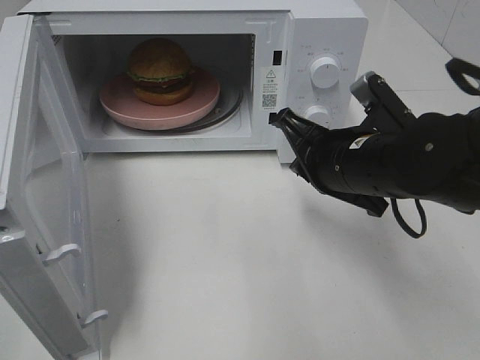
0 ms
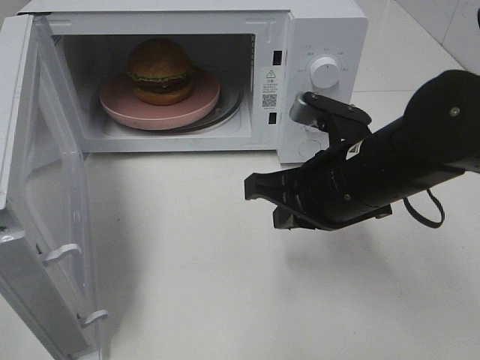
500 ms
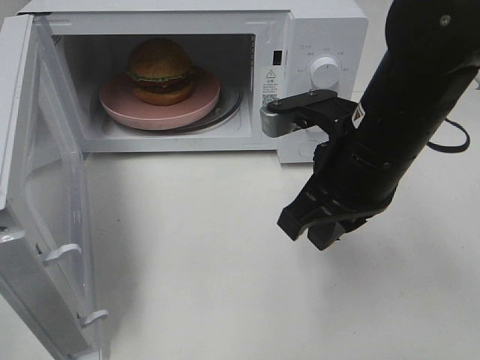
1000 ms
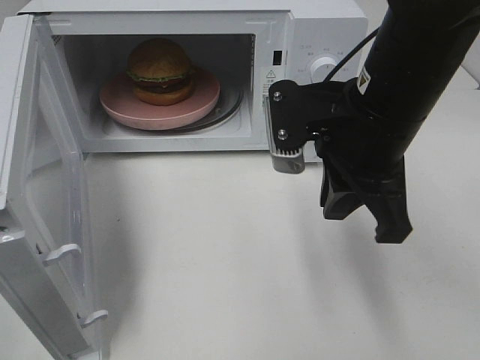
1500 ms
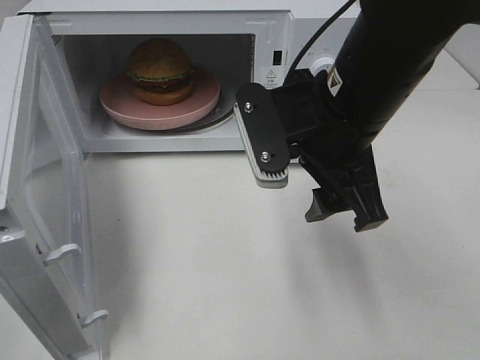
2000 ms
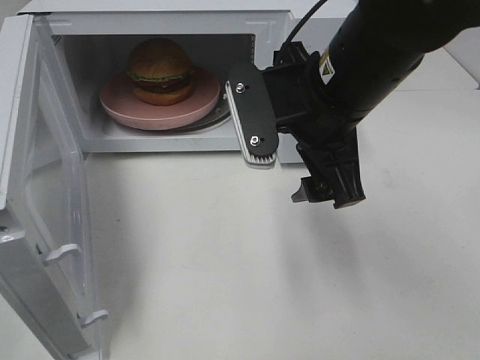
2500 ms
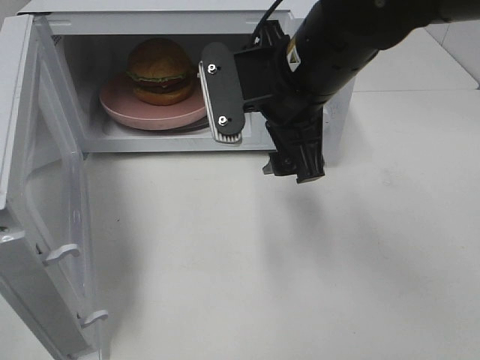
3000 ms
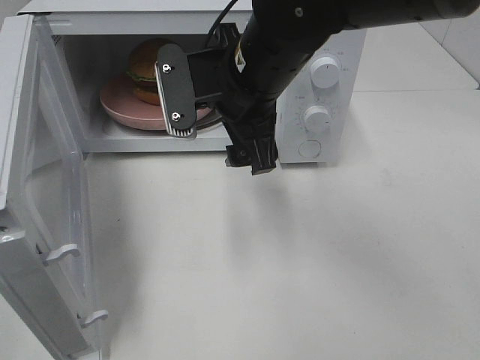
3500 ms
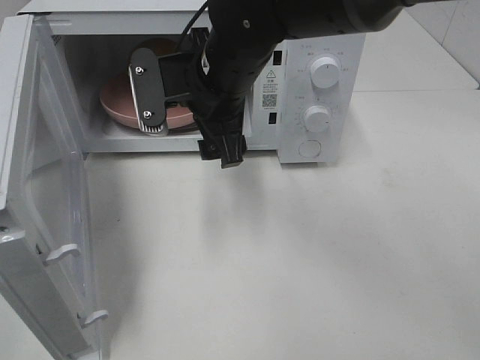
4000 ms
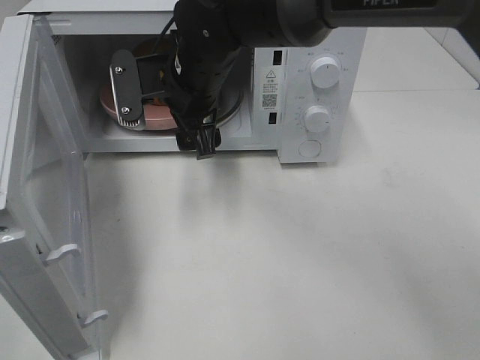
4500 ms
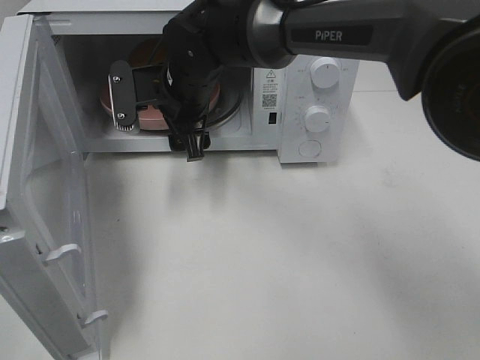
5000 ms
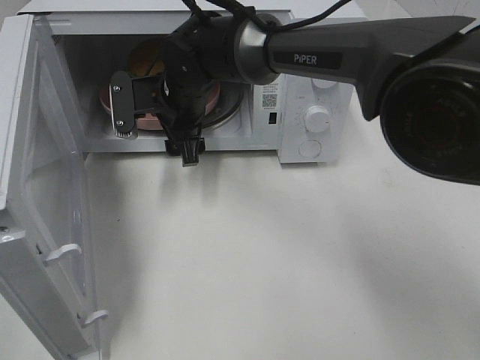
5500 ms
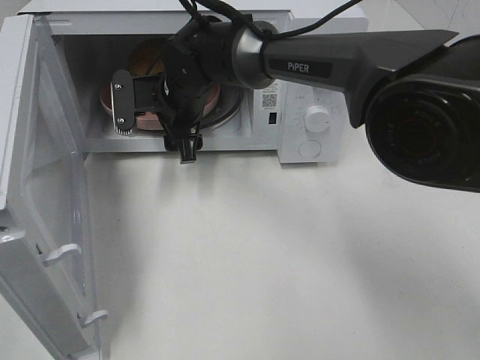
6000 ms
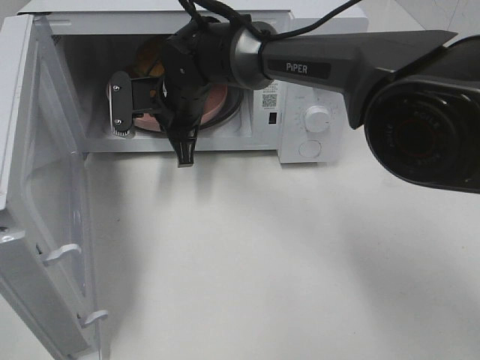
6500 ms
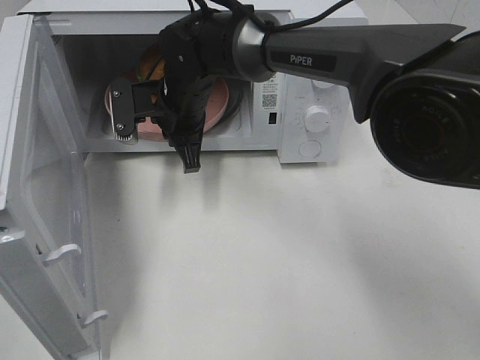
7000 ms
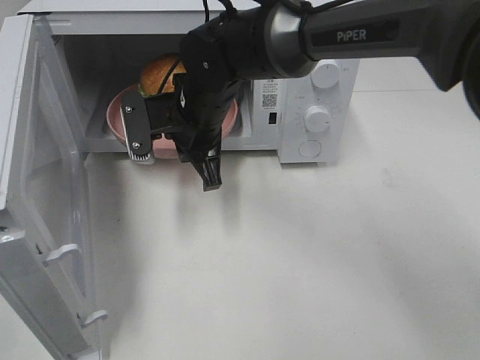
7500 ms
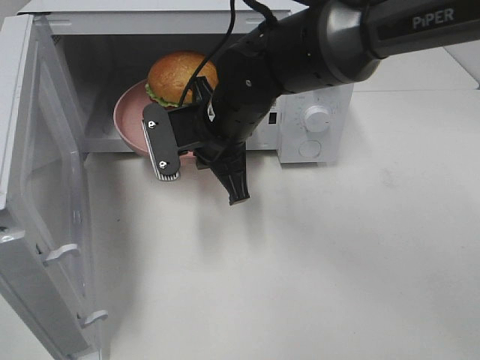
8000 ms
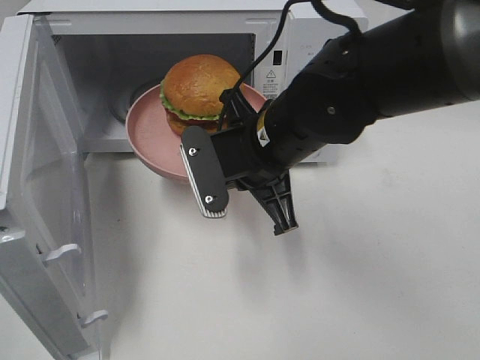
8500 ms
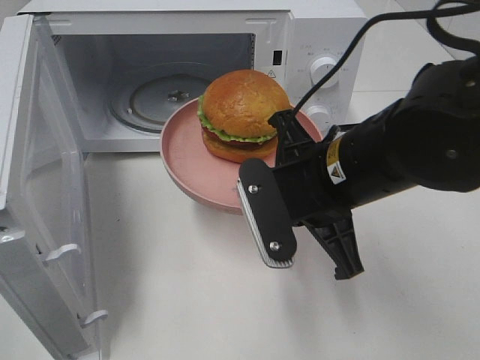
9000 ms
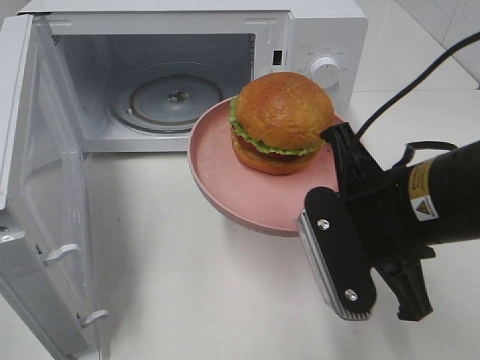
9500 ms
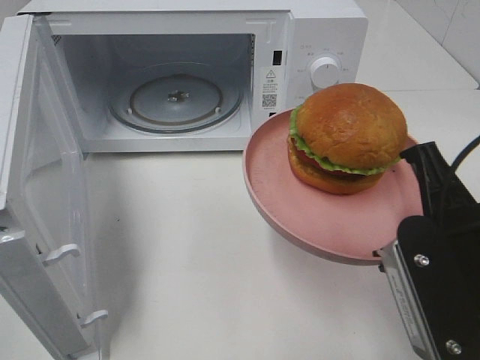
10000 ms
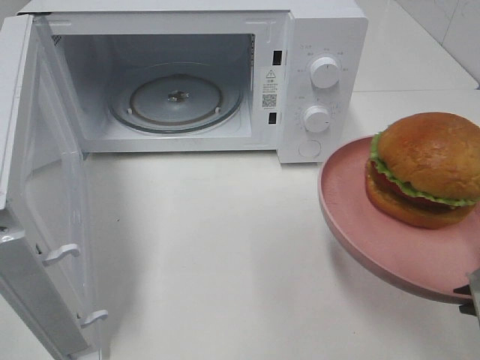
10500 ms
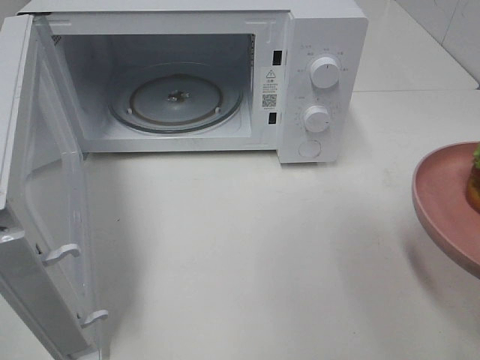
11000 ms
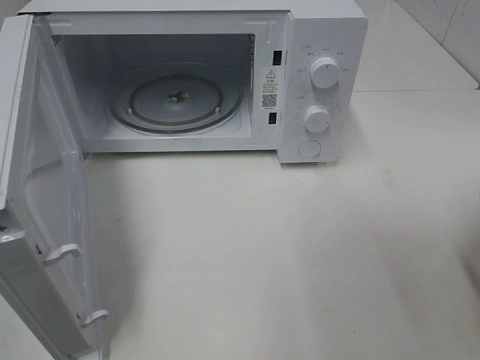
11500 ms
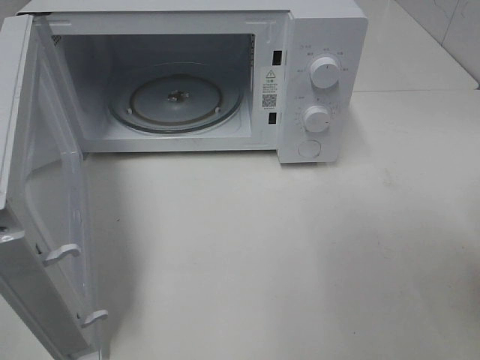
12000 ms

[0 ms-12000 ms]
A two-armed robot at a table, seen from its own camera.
Task of the whole recording: Heat the burger.
Step, 0 ms to 6500 ms: Right hand: grab the plate with the hamburger.
0 ms to 2000 ms: The right gripper shifts roughly 10 cm upward, and opens up.
2000 ms to 4000 ms: The right gripper is displaced to the left and forward by approximately 15 cm.
4000 ms to 6000 ms: The right gripper moves forward, downward and to the left, some 10 cm.
6000 ms to 8000 ms: The right gripper heads backward and to the right, covering approximately 10 cm, and closes its fingers.
8000 ms to 10000 ms: The right gripper is displaced backward and to the right by approximately 25 cm.
10000 ms to 12000 ms: The right gripper moves to the right, some 10 cm.

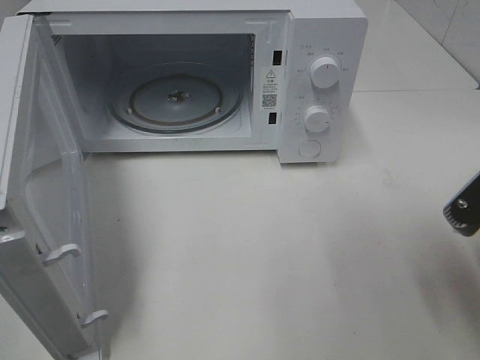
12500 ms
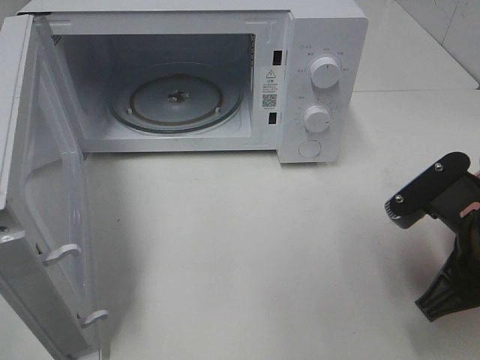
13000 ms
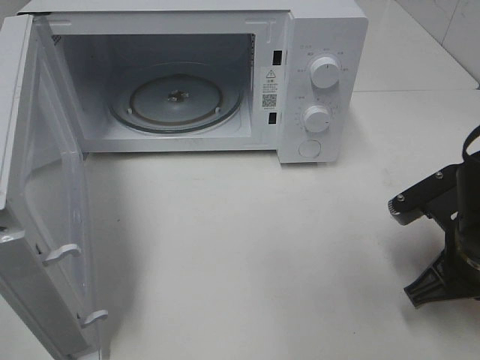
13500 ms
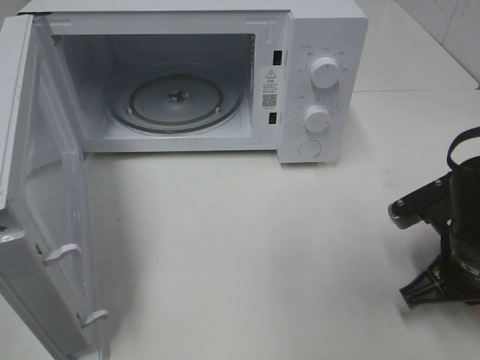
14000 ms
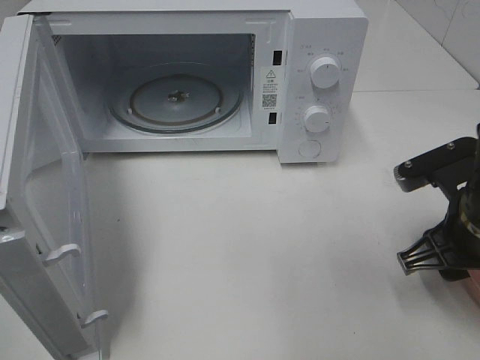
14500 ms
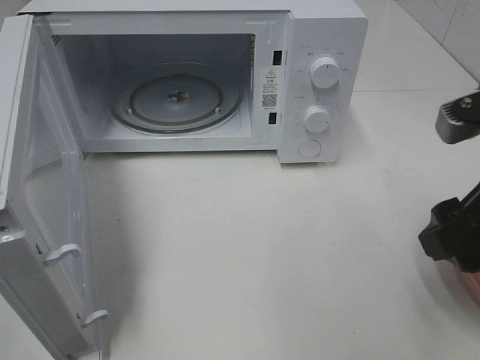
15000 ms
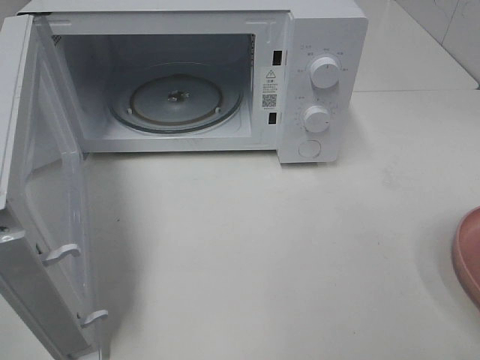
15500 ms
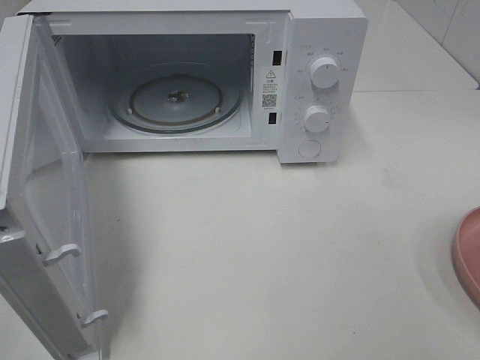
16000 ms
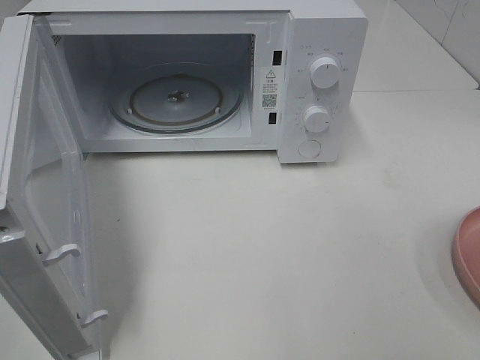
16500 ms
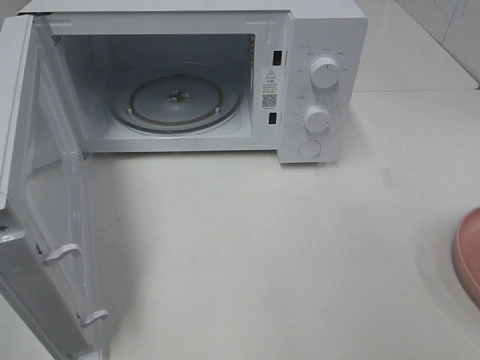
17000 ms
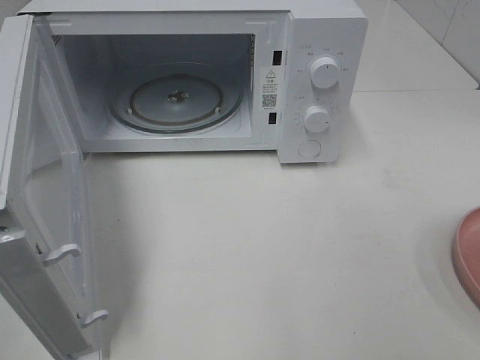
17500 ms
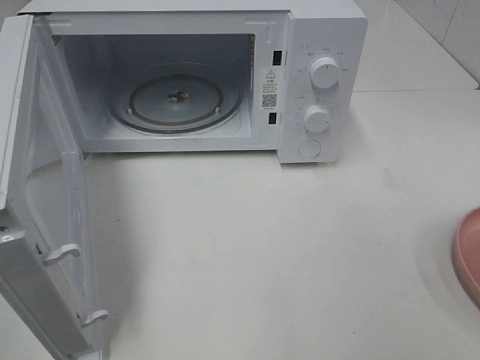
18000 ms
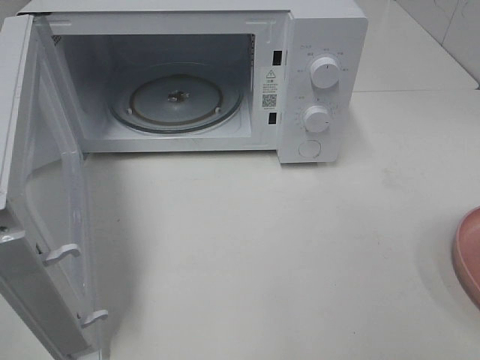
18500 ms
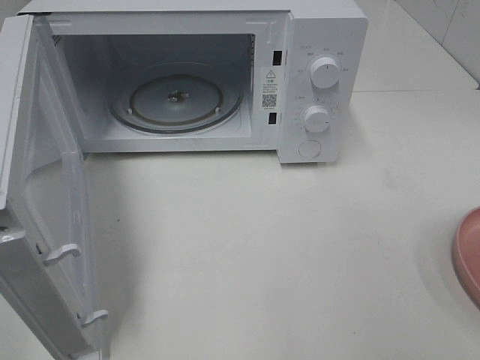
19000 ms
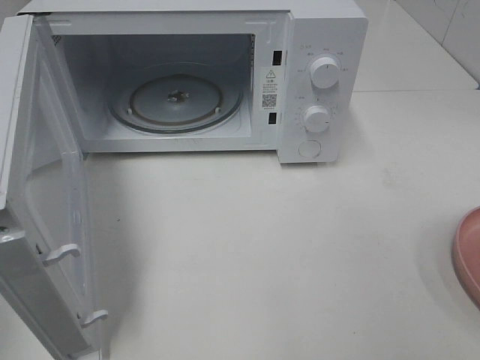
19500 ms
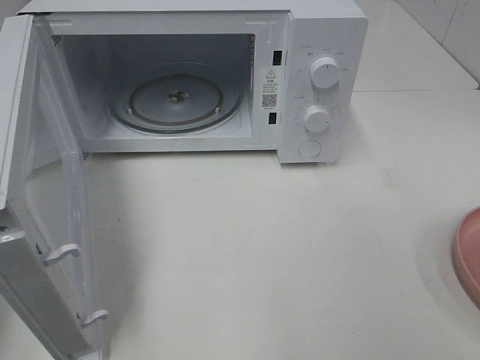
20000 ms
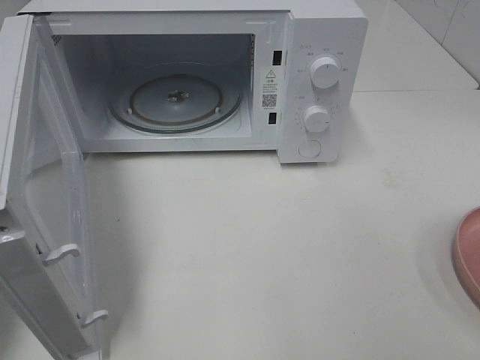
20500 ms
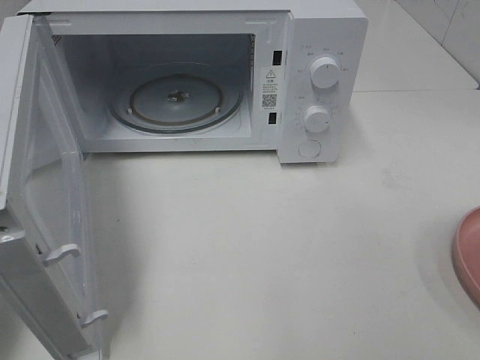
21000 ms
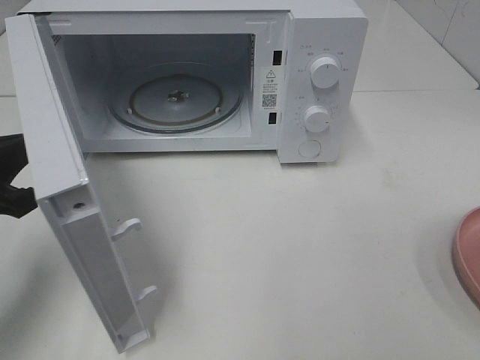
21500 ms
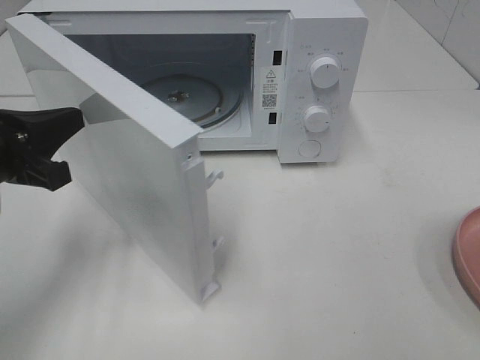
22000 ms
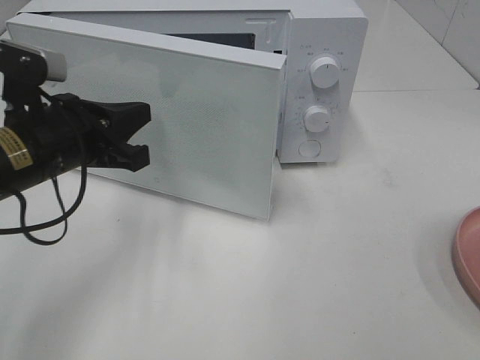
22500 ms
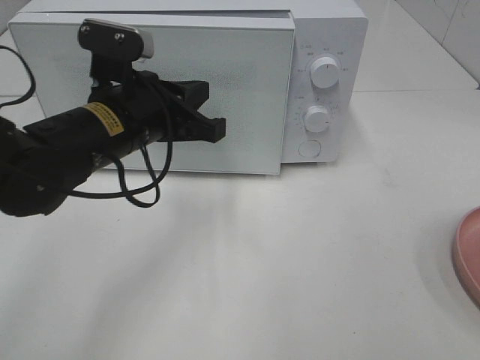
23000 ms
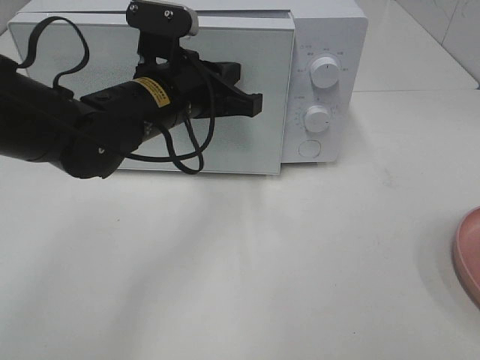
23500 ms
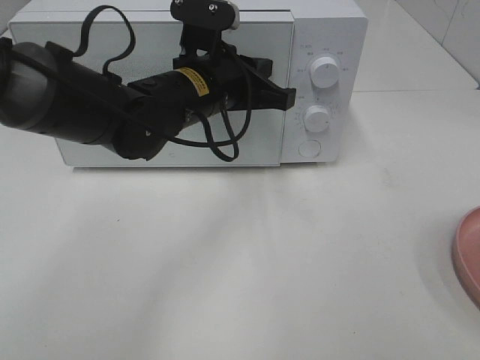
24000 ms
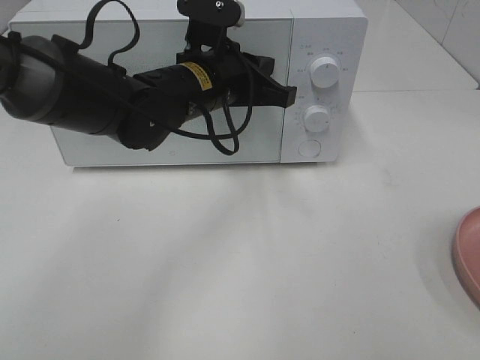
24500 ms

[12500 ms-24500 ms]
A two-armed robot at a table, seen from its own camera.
Task of the whole recording: Heat the burger.
12500 ms to 14500 ms: The right gripper is displaced forward and downward by about 10 cm, and opens up.
14500 ms to 16500 ms: The right gripper heads backward and upward, covering roughly 25 cm.
20500 ms to 22500 ms: The left gripper travels to the right and forward by some 15 cm.
22500 ms to 24500 ms: The left gripper heads to the right and forward, covering approximately 15 cm.

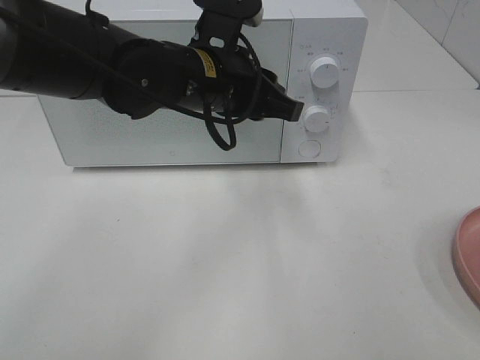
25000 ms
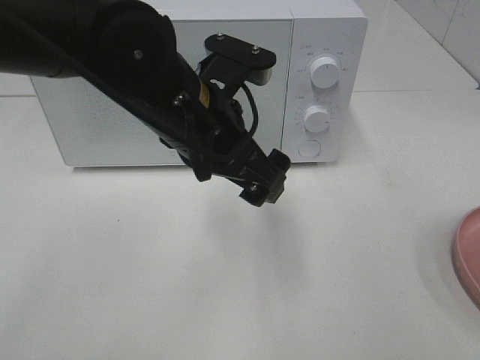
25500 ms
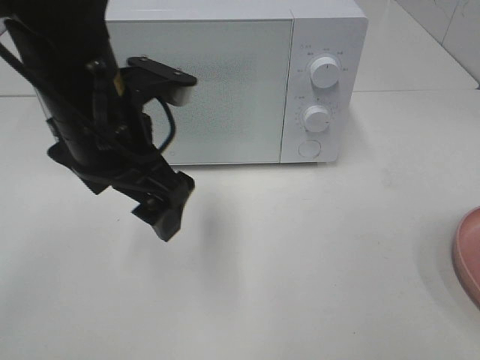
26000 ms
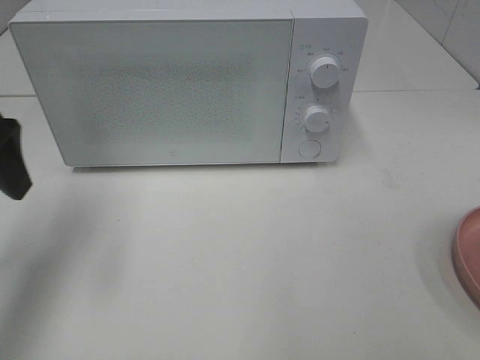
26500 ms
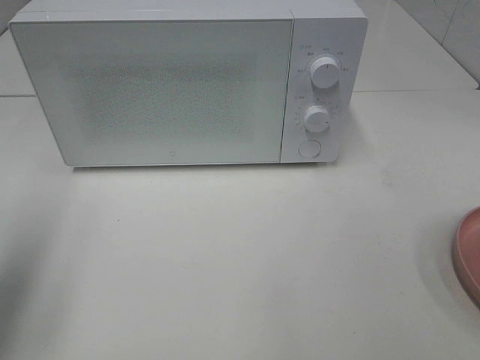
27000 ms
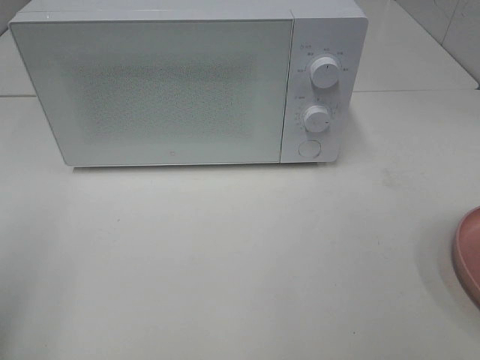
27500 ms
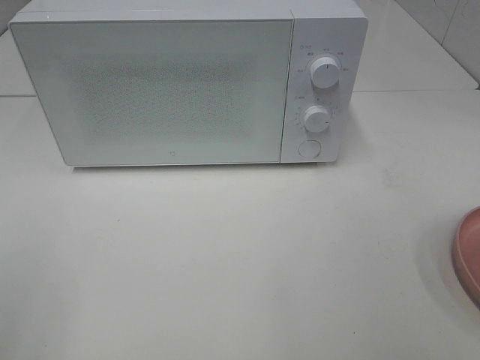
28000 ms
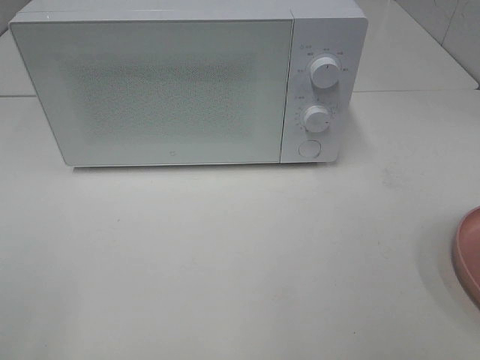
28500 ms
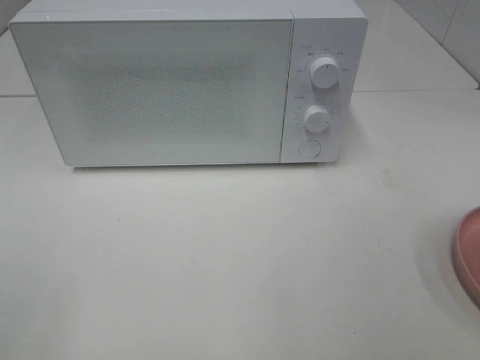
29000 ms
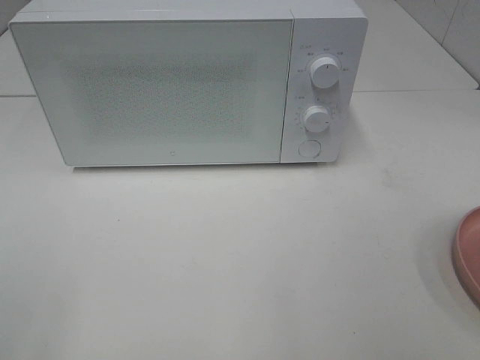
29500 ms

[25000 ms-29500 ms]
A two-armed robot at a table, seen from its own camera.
Task of the whole recording: Heat the burger.
25000 ms to 27000 ms: The left gripper travels to the left and backward by approximately 35 cm, and opens.
27000 ms to 29500 ms: The left gripper shifts about 20 cm backward.
